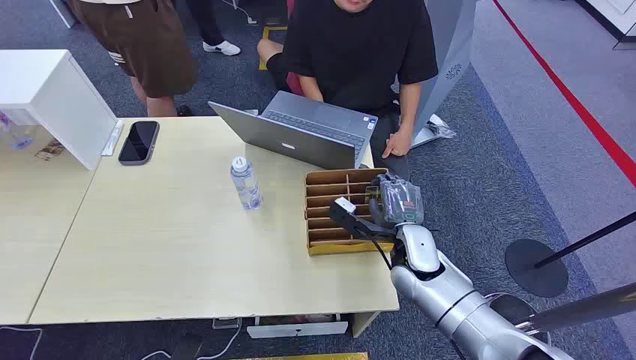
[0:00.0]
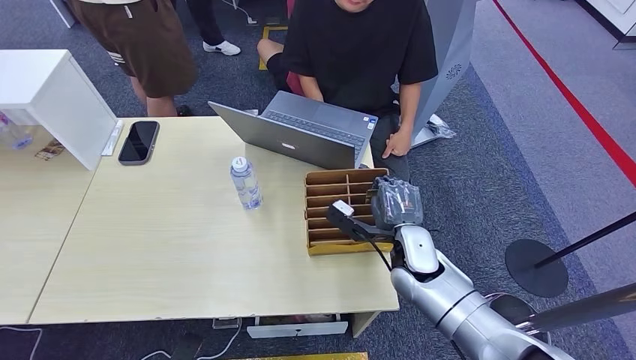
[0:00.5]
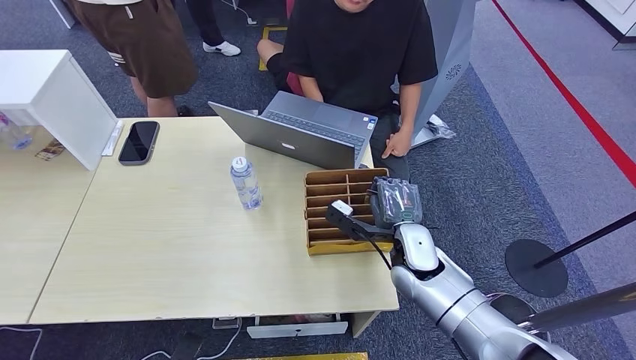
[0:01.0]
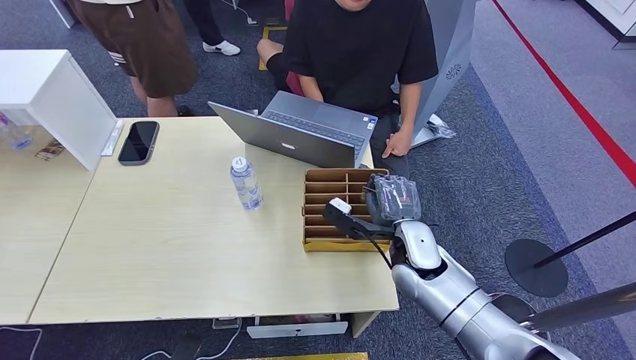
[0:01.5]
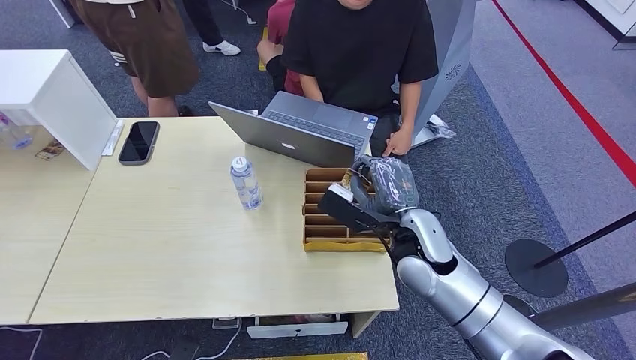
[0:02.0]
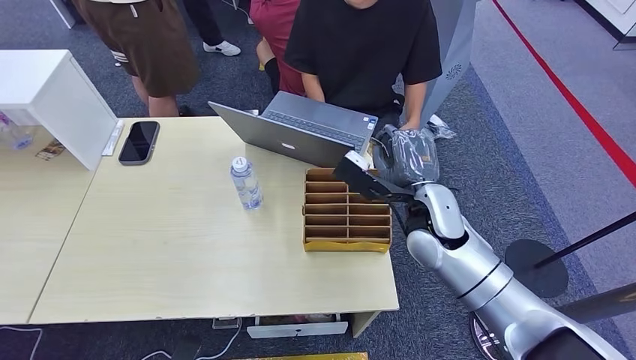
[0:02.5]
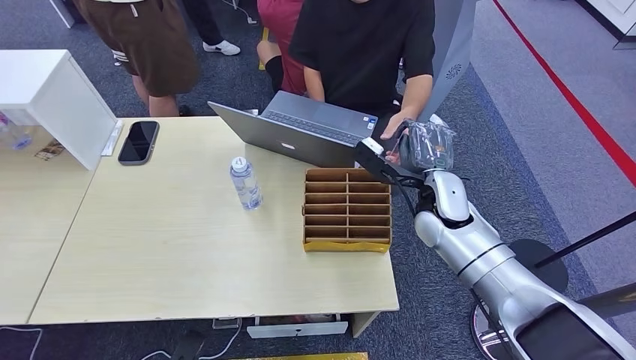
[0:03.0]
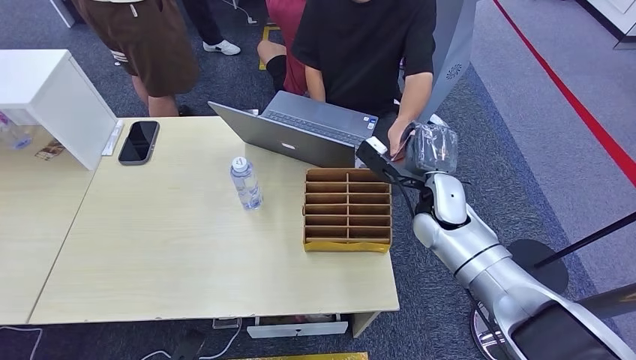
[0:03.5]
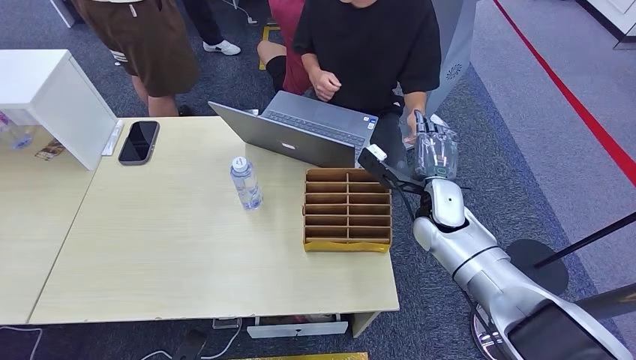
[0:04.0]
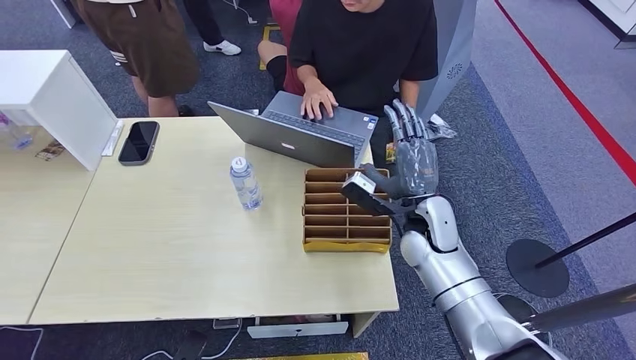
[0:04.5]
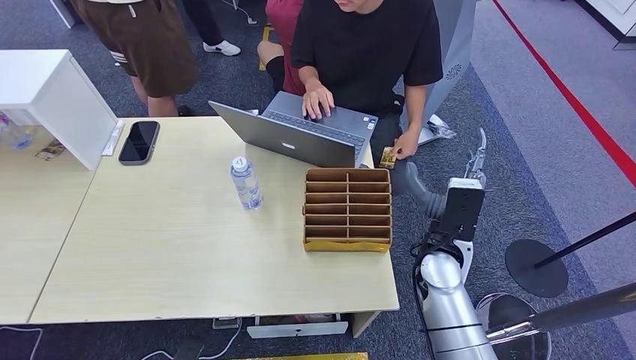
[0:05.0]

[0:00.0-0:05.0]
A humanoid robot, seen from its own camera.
Step, 0:00.0 to 0:02.0: Pick up the key card from the card box.
Step, 0:02.5 to 0:05.0: Hand the key card to the target.
0:02.5 to 0:05.0: The right hand moves downward, roughly 5 cm.
